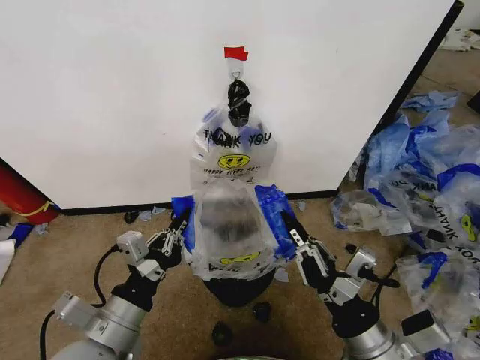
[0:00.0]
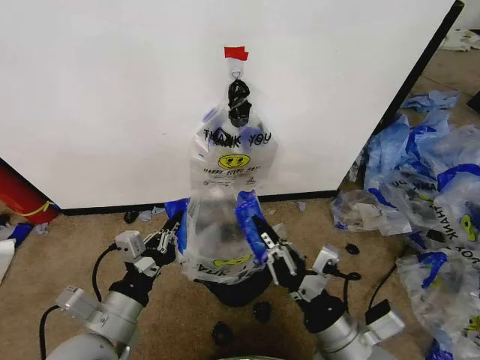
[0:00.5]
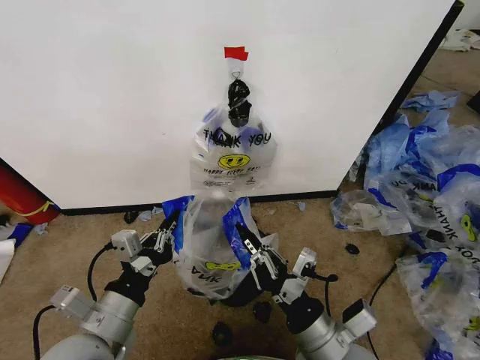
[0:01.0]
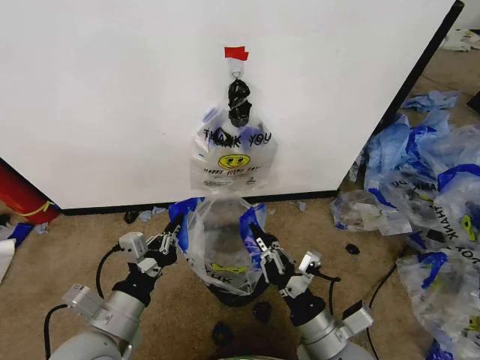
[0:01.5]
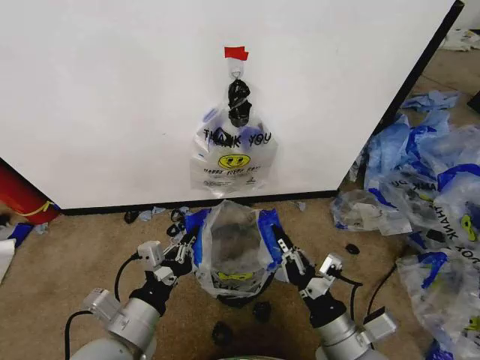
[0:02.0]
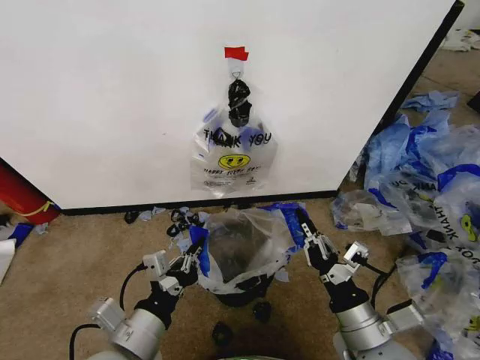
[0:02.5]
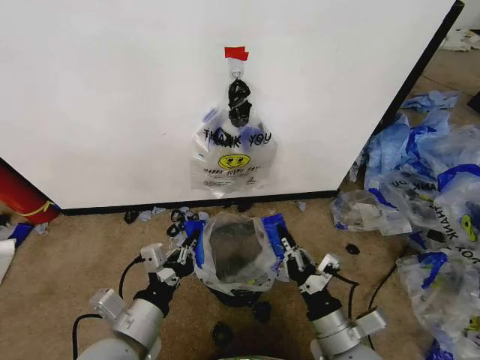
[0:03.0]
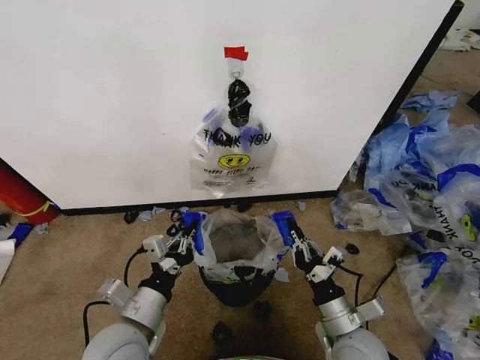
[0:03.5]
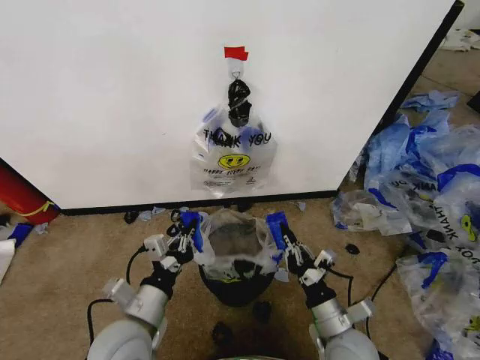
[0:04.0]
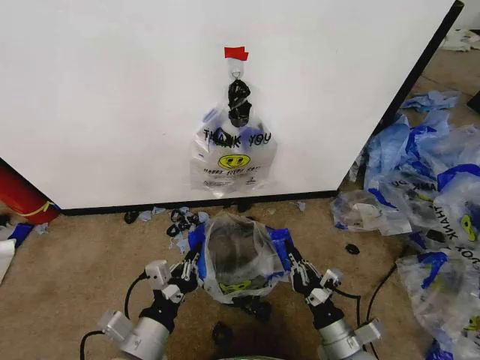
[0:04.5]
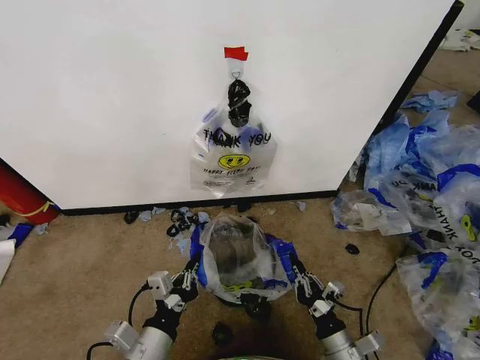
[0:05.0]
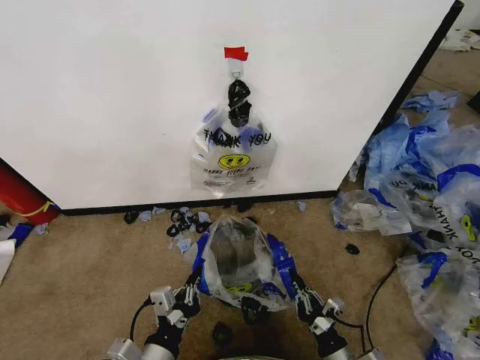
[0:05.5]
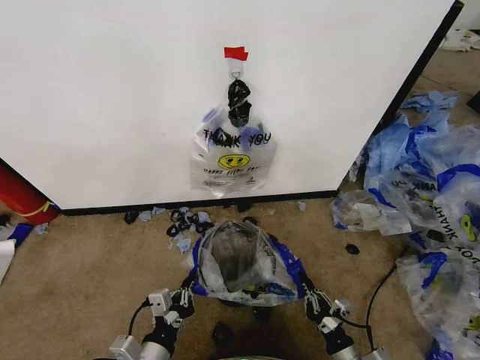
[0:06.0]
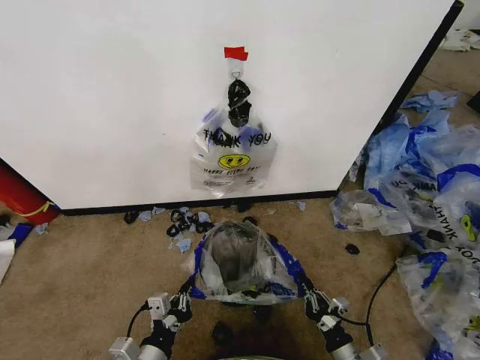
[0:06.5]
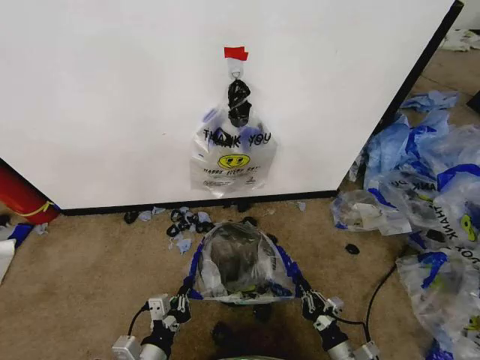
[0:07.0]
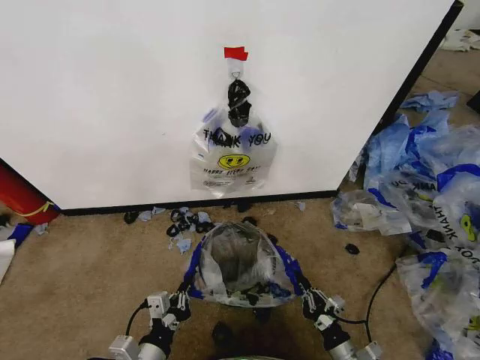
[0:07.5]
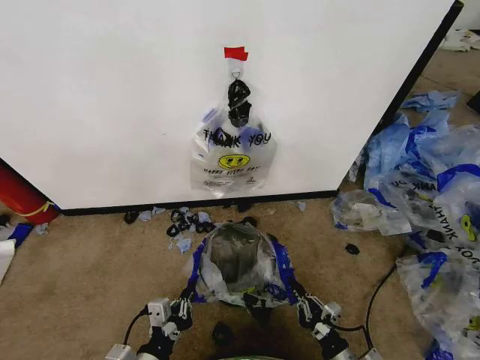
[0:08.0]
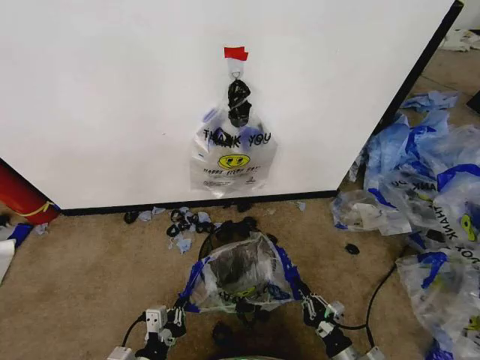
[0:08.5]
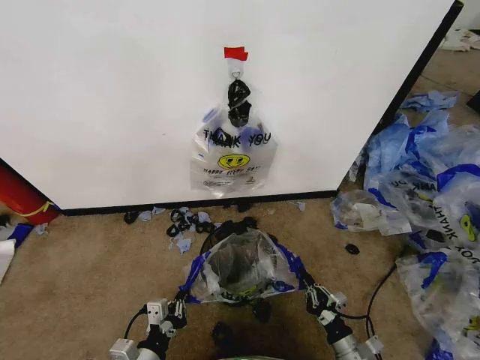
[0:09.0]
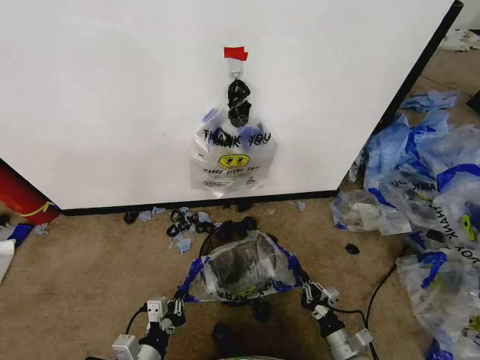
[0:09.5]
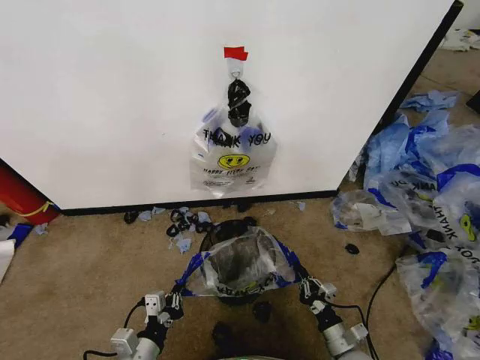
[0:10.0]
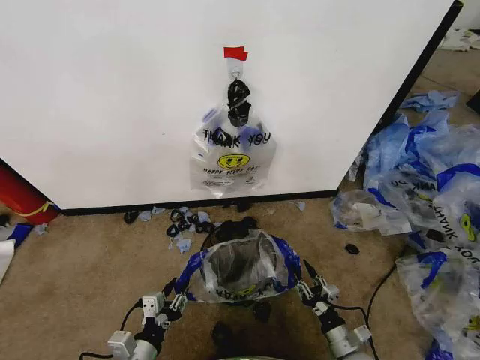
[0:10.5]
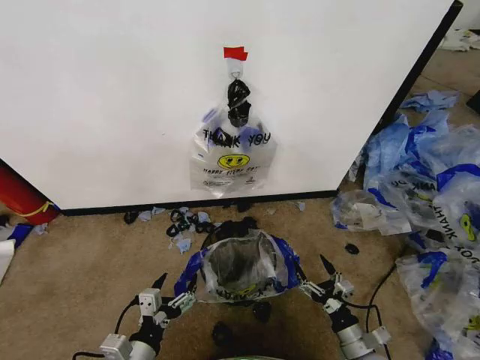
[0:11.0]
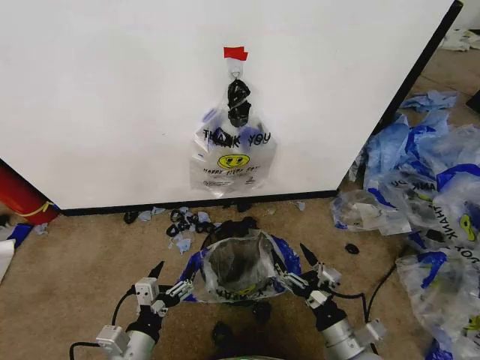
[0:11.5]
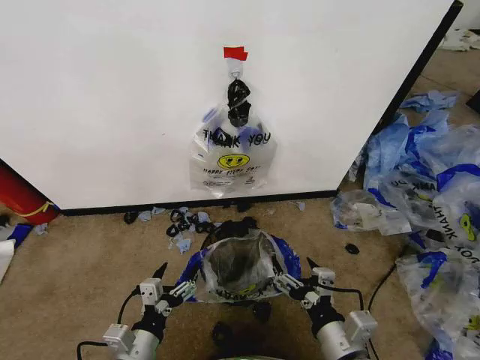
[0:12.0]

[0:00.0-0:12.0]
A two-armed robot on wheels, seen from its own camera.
Task of the whole recording: Pick up the garbage bag from the wall and place it over the trash bin.
0:00.0 to 0:02.0: The right gripper travels downward by approximately 5 cm.
0:02.0 to 0:04.0: The left gripper changes place by some 5 cm; the right gripper goes approximately 5 cm downward.
0:04.0 to 0:06.0: The left gripper goes about 10 cm downward and backward. Meanwhile the right gripper shifts some 15 cm downward, backward and to the right.
0:06.0 to 0:08.0: The grippers move only a little.
0:08.0 to 0:10.0: The left gripper changes place by some 5 cm, while the right gripper travels forward by approximately 5 cm.
0:10.0 to 0:12.0: The left gripper opens up. Meanwhile the right gripper moves upward, some 20 cm, and opens up.

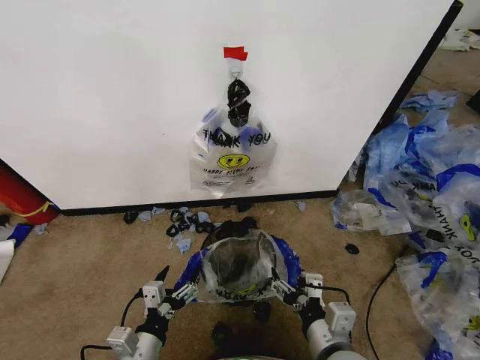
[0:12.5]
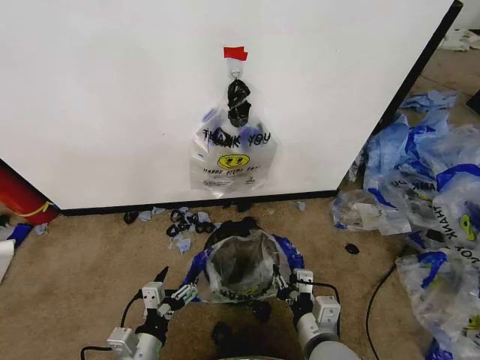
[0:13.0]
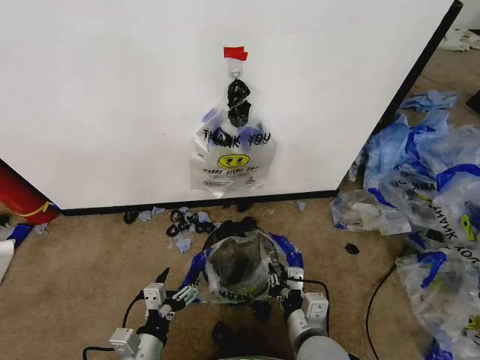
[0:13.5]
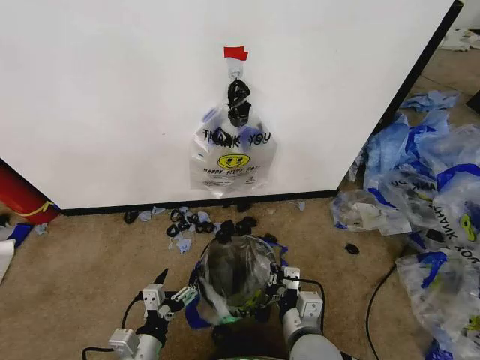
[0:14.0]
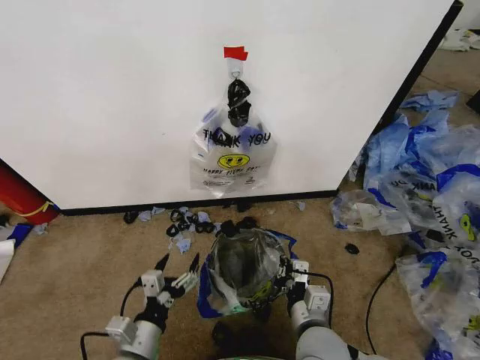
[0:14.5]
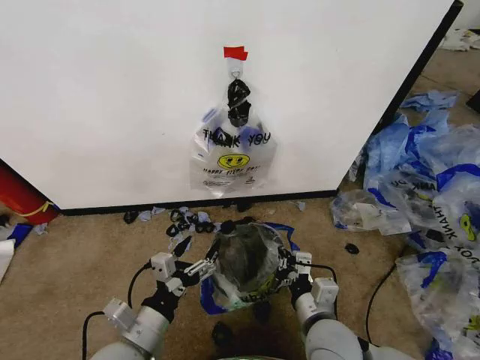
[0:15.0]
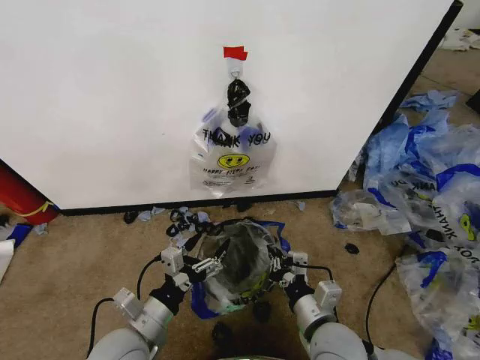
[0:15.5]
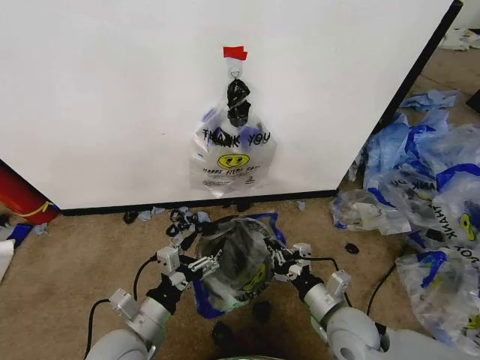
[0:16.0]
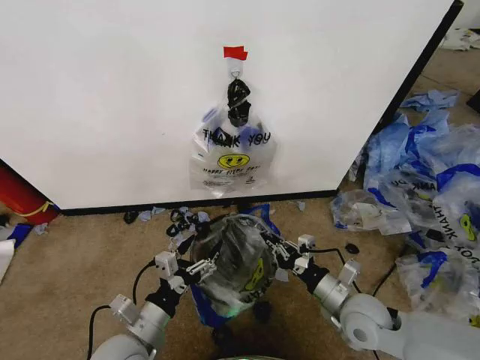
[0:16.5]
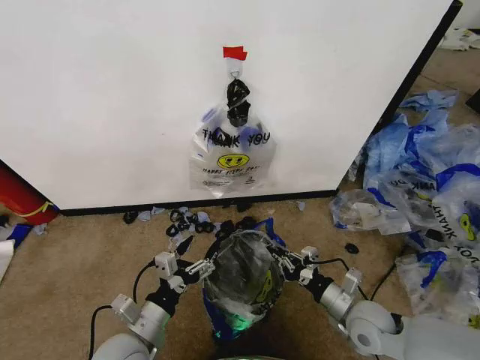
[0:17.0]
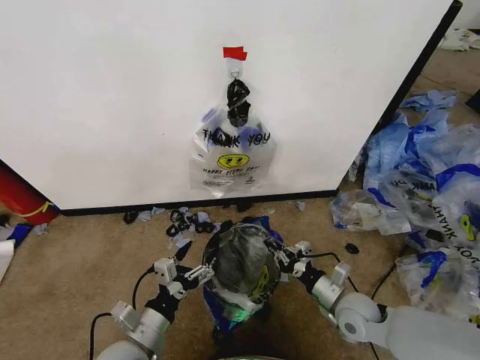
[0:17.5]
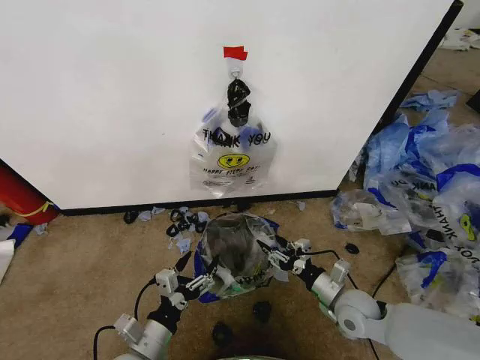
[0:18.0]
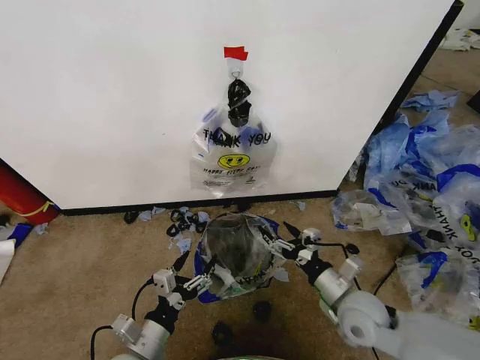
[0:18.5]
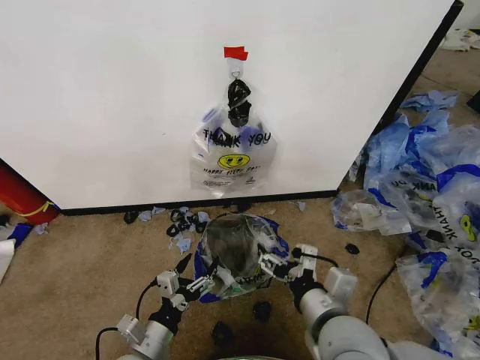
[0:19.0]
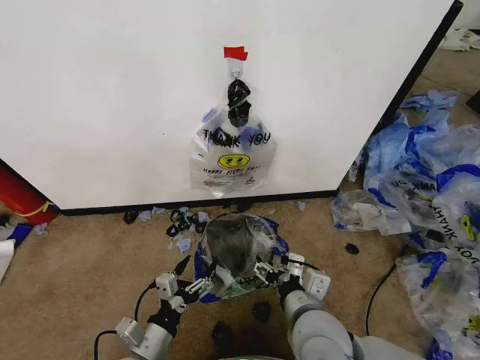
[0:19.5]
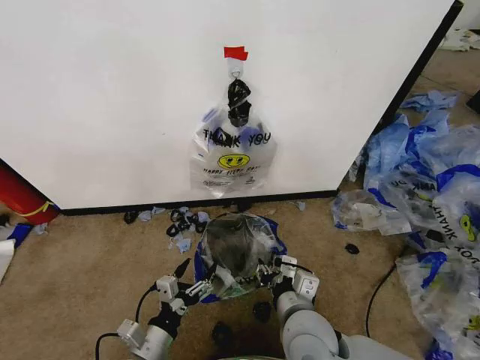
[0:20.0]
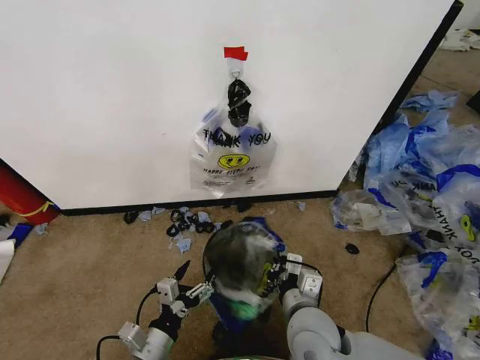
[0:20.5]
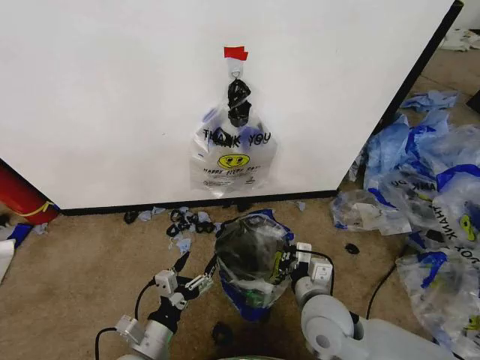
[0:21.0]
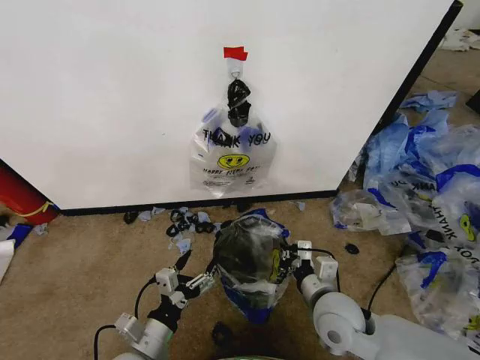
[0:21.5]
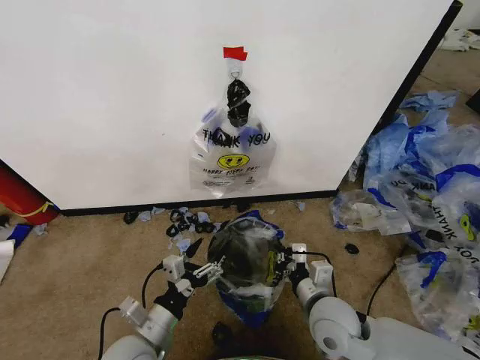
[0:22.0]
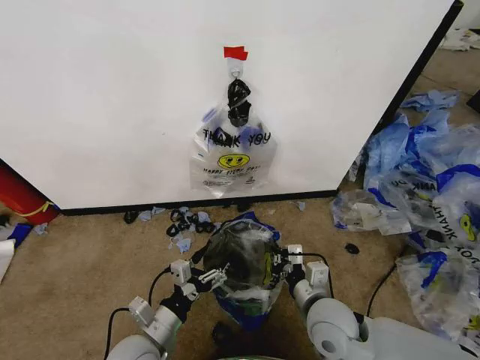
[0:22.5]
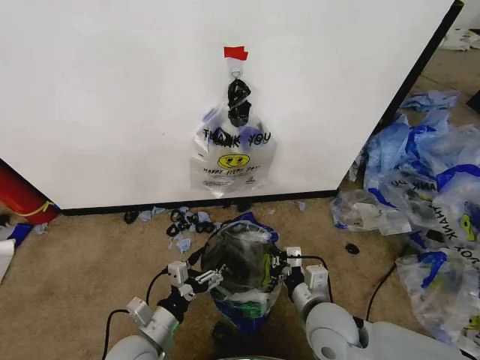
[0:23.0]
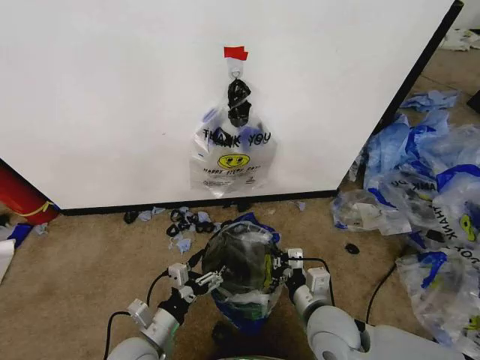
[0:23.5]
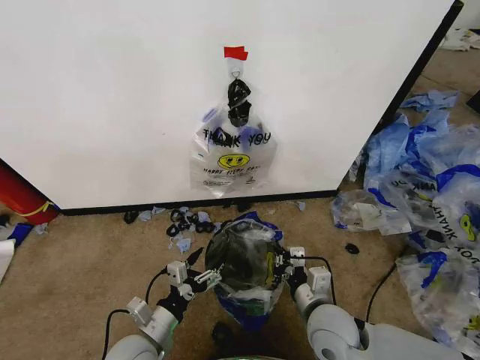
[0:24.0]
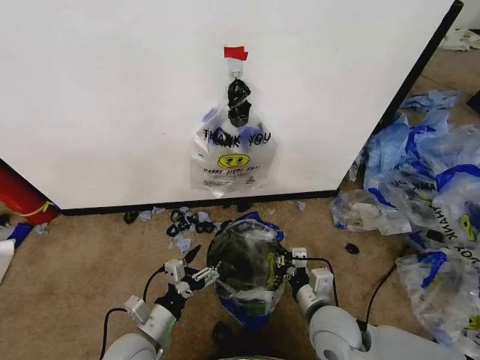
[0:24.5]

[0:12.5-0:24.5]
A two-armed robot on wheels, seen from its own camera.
Task of the whole recording: Pick up the garbage bag from the wall and place it over the trash bin.
0:12.5 to 0:14.5: The right gripper moves approximately 5 cm, and closes up.
0:14.5 to 0:16.5: The right gripper travels to the right and forward by some 15 cm.
0:16.5 to 0:18.5: The right gripper opens its fingers.
0:18.5 to 0:20.5: The right gripper is displaced to the left by about 10 cm, and closes up.
0:20.5 to 0:22.5: The right gripper ends up roughly 5 cm from where it was.
0:22.5 to 0:24.5: The grippers stay close to where they were, moving slightly.

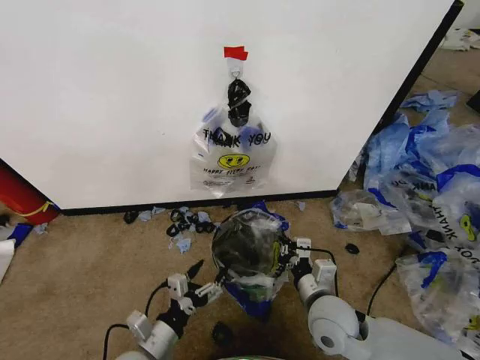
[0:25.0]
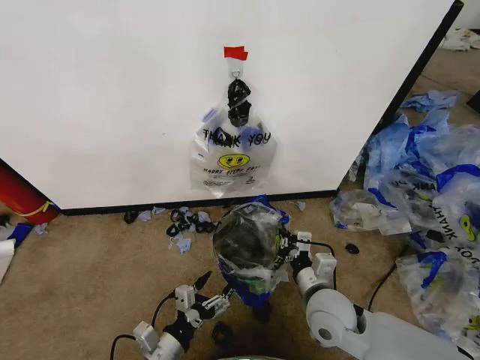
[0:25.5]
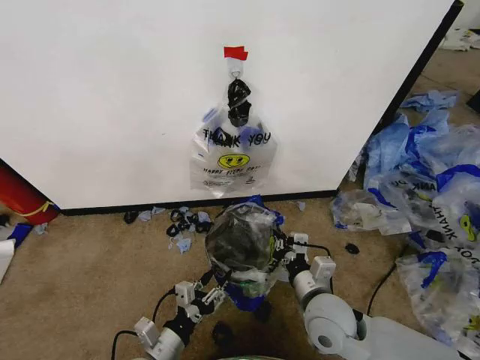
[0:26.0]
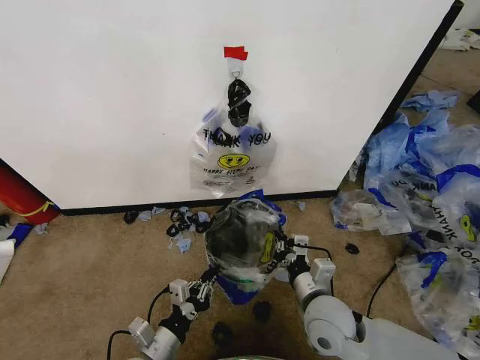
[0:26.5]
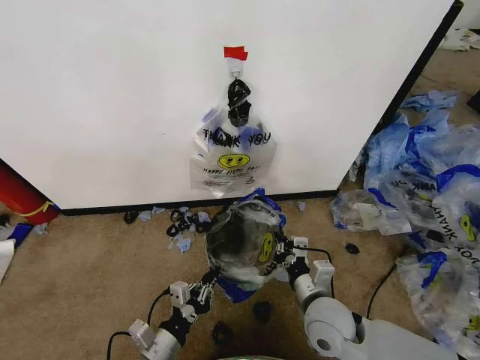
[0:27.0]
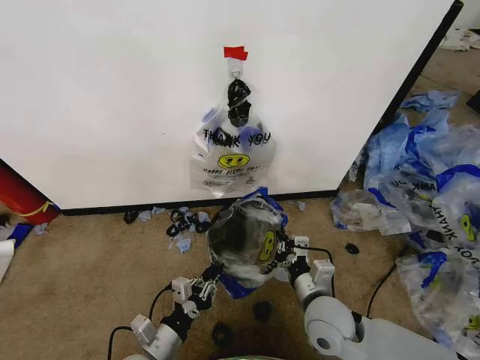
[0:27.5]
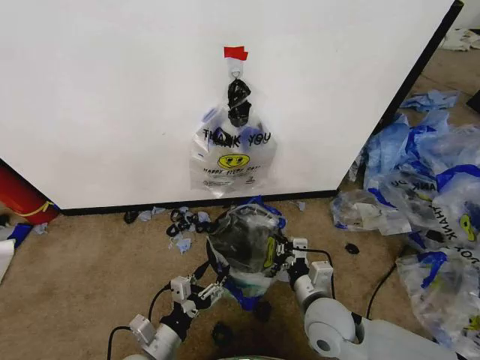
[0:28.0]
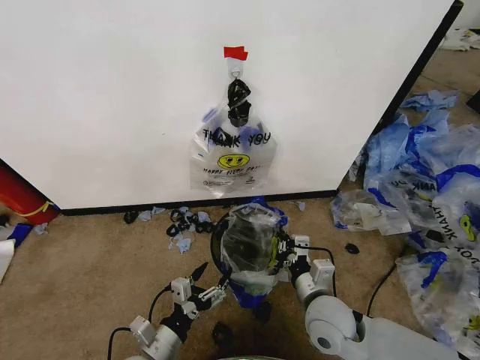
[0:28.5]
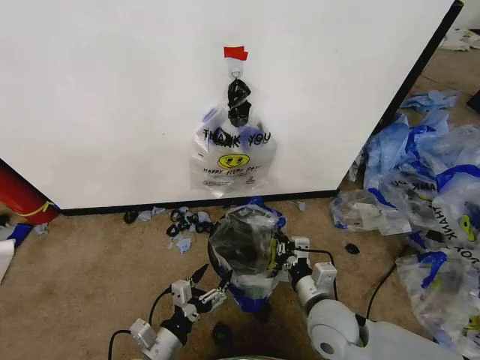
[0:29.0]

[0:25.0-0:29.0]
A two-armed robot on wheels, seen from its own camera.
Task of the whole recording: Pick up the garbage bag from the wall and place it over the trash bin.
0:25.0 to 0:27.0: The left gripper closes up.
0:27.0 to 0:29.0: The left gripper opens.
